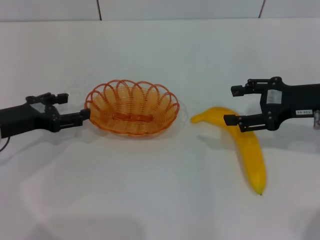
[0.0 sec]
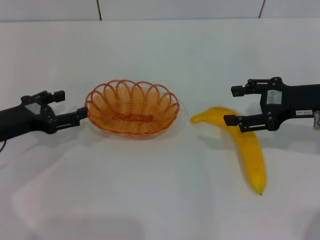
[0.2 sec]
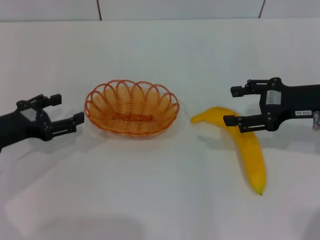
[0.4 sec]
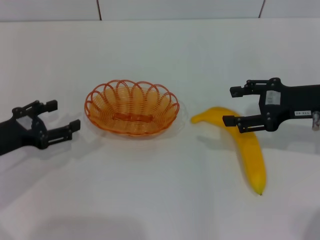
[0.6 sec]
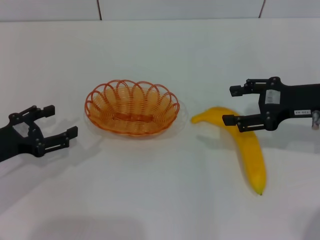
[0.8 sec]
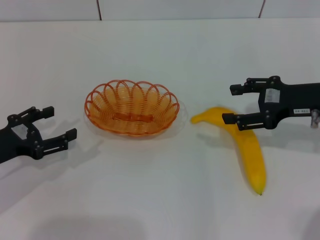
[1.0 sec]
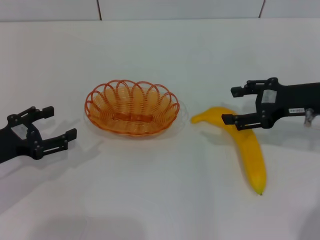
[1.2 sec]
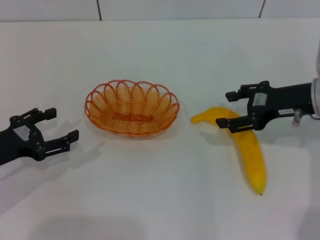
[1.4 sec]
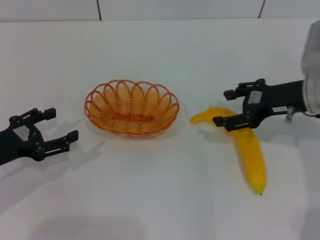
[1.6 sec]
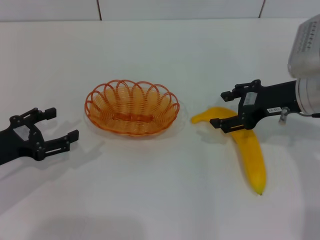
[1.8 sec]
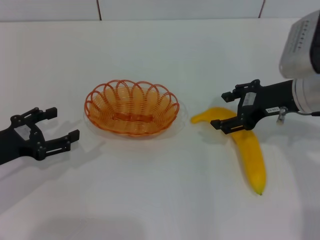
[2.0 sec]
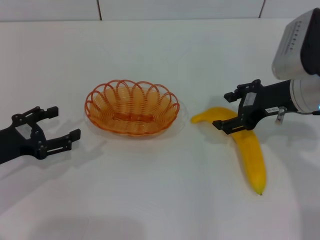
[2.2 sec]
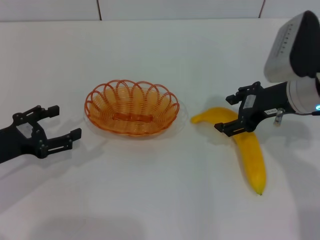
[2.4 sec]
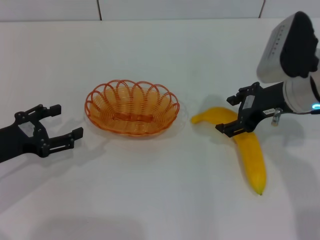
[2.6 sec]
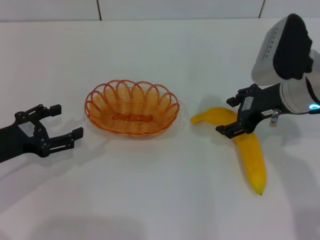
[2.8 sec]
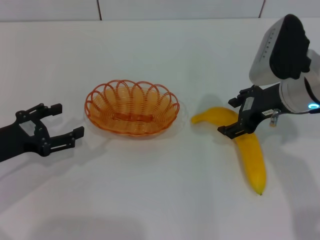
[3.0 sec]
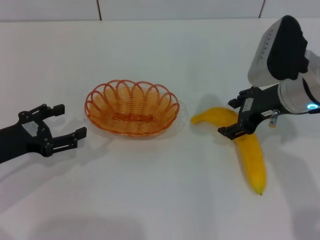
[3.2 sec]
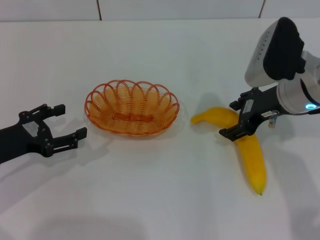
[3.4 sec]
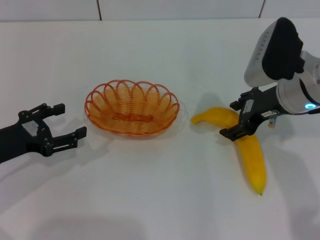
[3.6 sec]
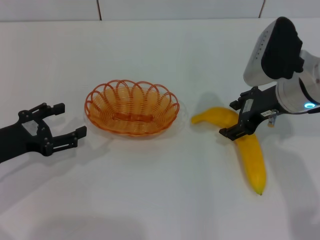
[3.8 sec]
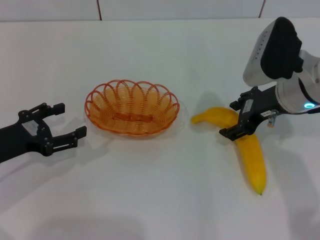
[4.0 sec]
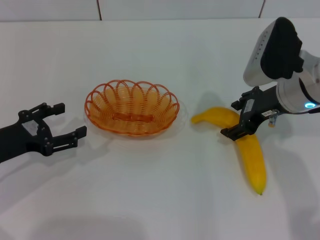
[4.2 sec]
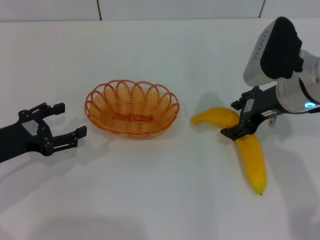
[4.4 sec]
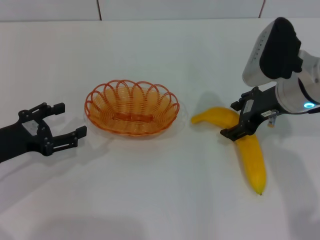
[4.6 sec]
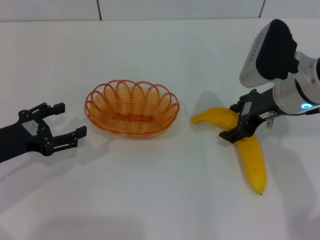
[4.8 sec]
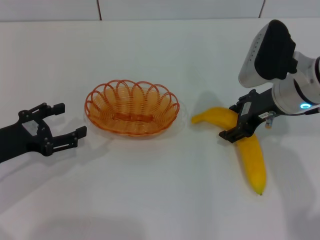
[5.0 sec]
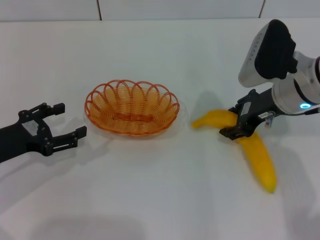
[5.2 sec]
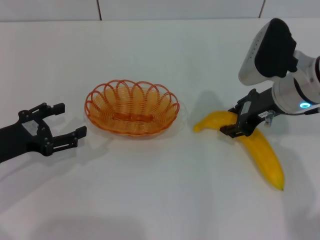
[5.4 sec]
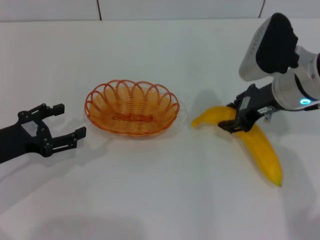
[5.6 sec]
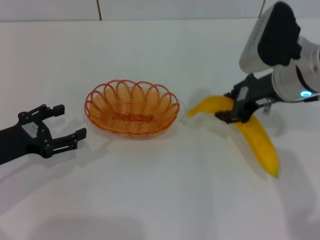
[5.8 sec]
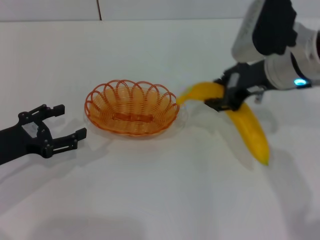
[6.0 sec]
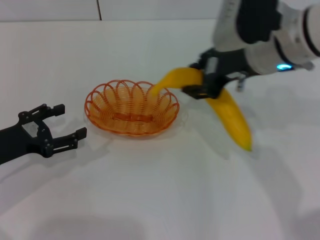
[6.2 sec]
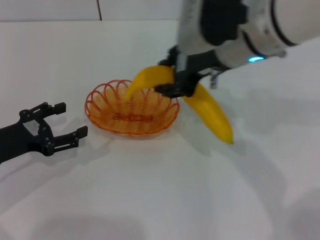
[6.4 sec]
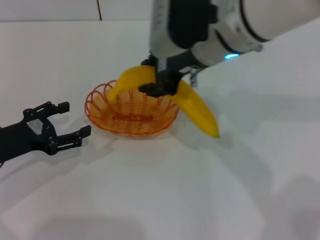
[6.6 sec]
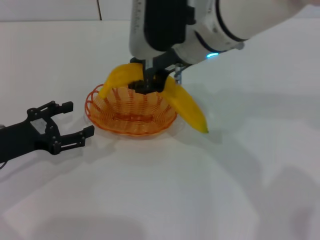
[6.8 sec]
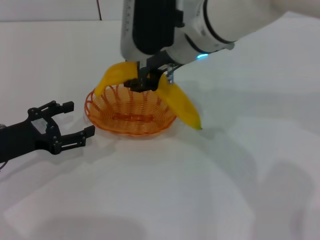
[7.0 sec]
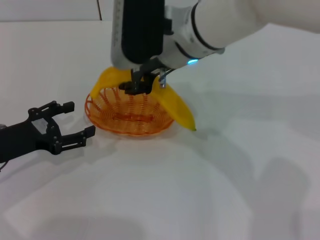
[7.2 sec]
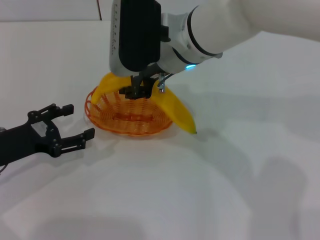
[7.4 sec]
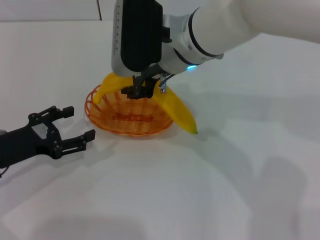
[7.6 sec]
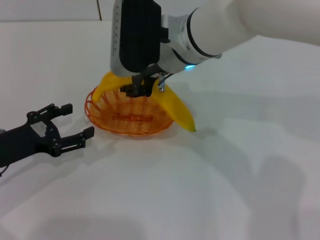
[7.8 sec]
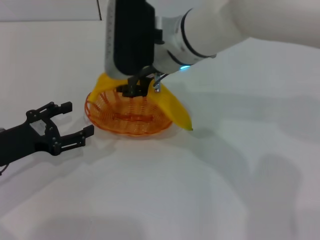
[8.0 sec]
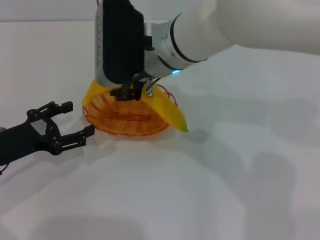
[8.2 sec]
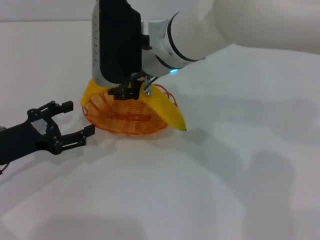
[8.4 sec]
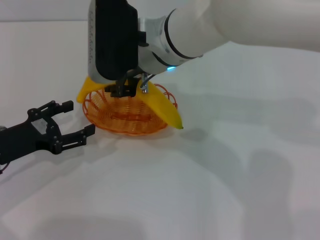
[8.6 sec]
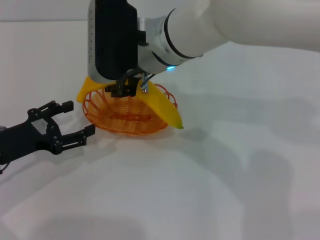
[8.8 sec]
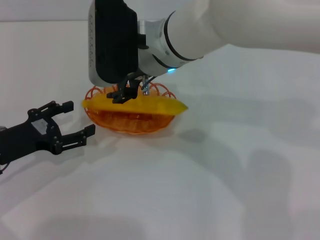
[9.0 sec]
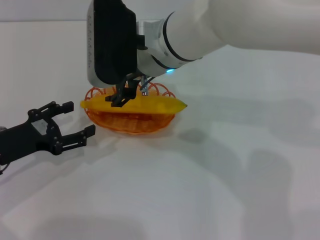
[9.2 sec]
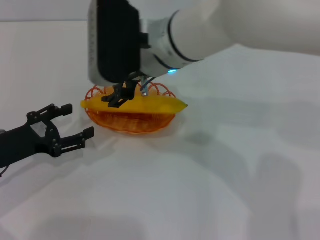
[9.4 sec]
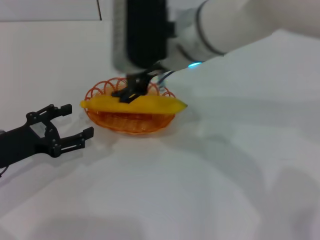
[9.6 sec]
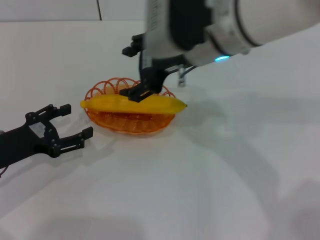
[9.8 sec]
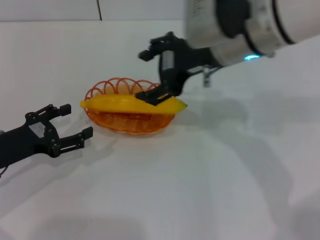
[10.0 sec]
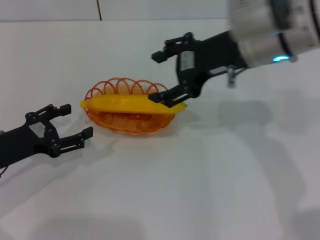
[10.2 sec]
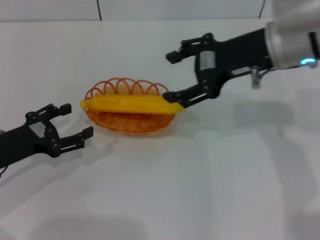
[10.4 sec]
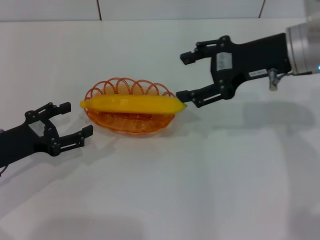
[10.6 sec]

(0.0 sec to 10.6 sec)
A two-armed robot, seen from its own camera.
Step, 0.0 sec - 5.8 sec: Pick up the banana with the right gripper.
Step, 6.0 sec - 9.4 sec: Place the banana into the basket with the right gripper.
0.0 sec - 1.6 sec: The left gripper moves backward, some 5 cm.
1.6 sec - 3.0 sec: The grippers move only a little.
3.0 sec - 4.6 sec: The two grippers keep their place.
4.6 sec - 6.0 sec: The right gripper closes.
6.0 sec - 7.6 sec: The right gripper is displaced to the left by some 15 cm.
7.6 sec - 9.0 sec: There are only small adjustments of the grippers.
9.0 sec - 10.6 sec: The right gripper moves to the right, roughly 20 cm, and opens.

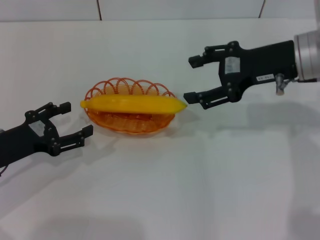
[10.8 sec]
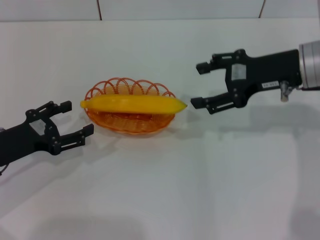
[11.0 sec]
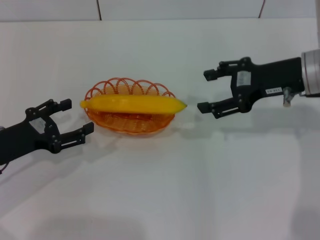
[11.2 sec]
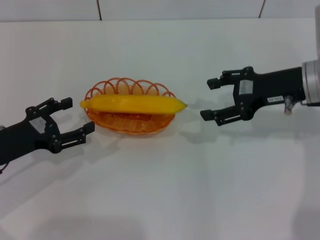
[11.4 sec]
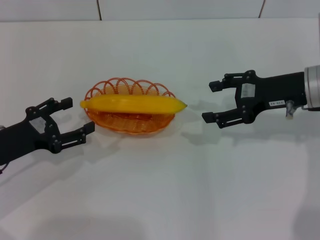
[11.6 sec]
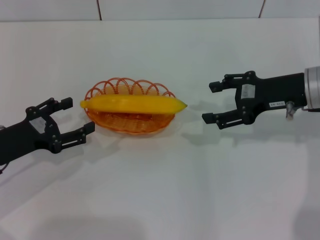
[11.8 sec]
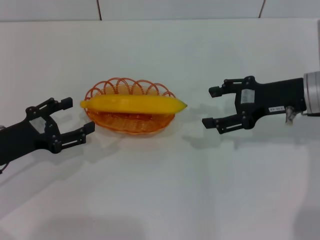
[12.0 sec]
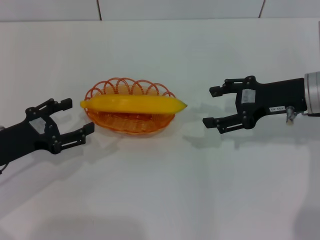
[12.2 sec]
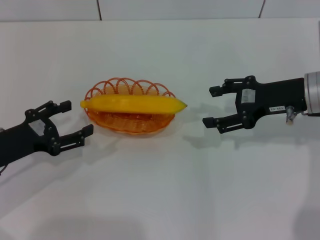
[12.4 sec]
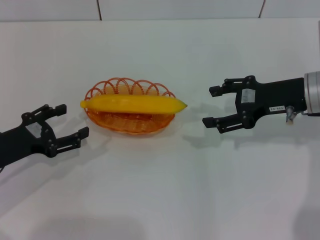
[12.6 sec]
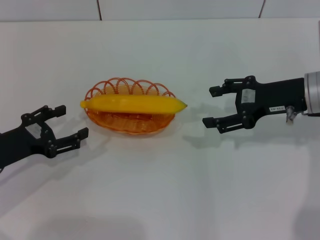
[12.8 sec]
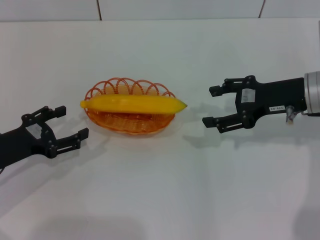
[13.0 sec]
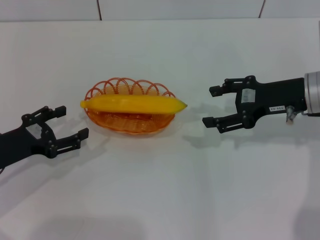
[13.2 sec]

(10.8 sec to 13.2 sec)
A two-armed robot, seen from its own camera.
10.8 sec - 12.0 sec: The right gripper shifts roughly 5 cm downward.
12.0 sec - 13.2 sec: The grippers move only a little.
